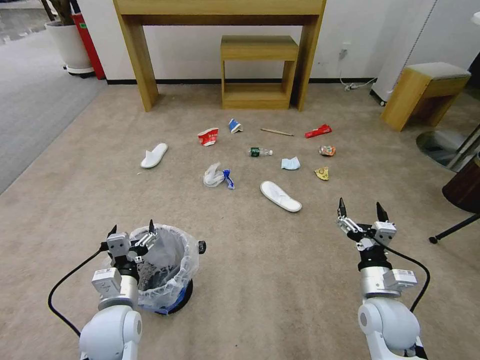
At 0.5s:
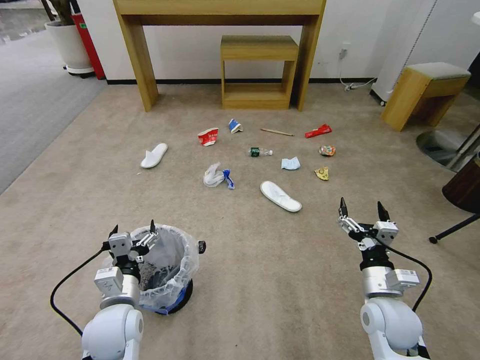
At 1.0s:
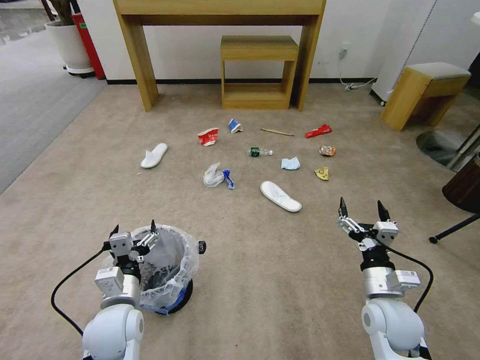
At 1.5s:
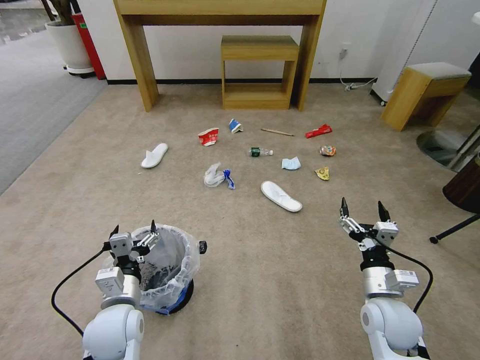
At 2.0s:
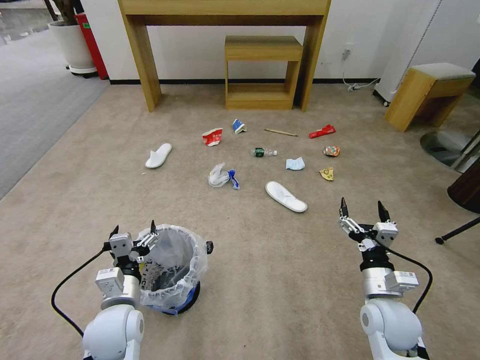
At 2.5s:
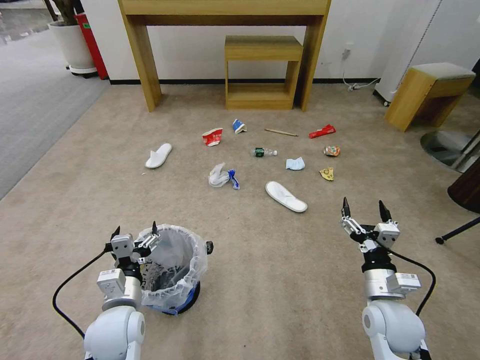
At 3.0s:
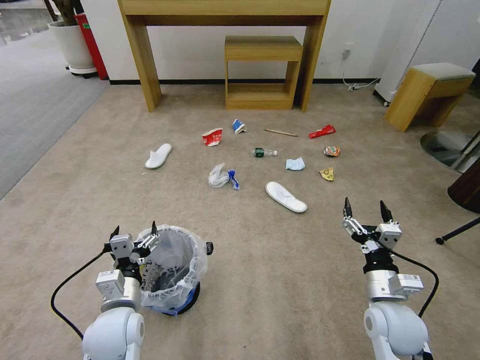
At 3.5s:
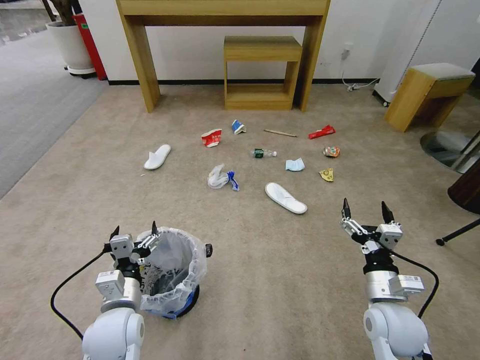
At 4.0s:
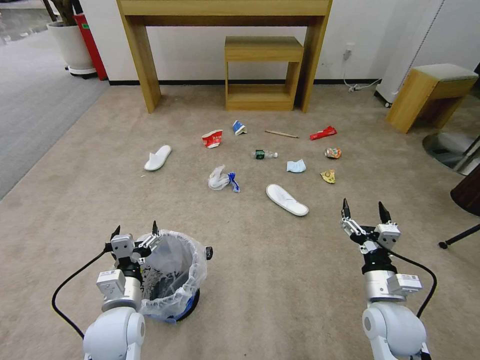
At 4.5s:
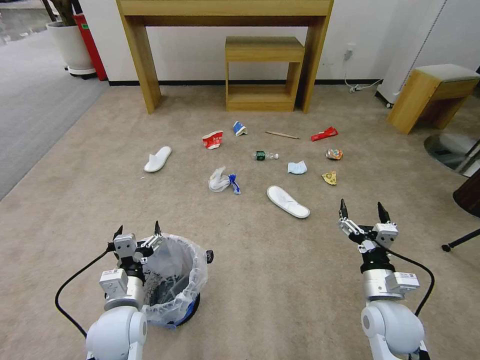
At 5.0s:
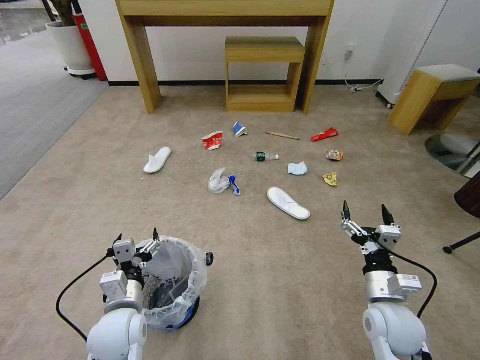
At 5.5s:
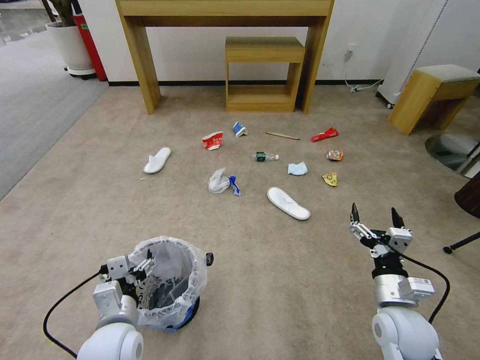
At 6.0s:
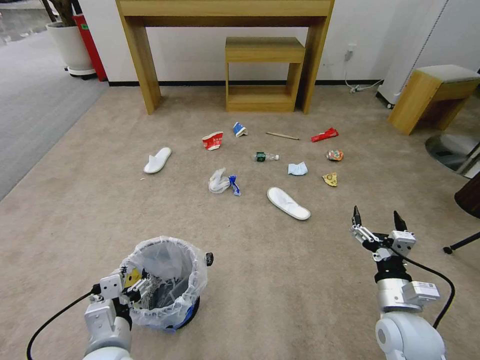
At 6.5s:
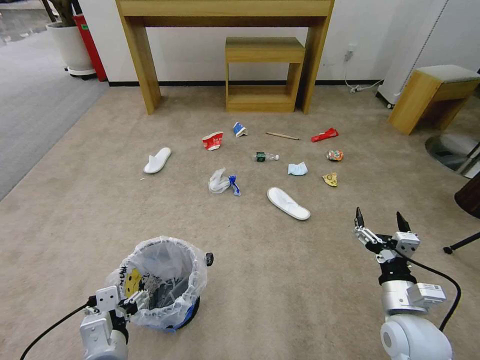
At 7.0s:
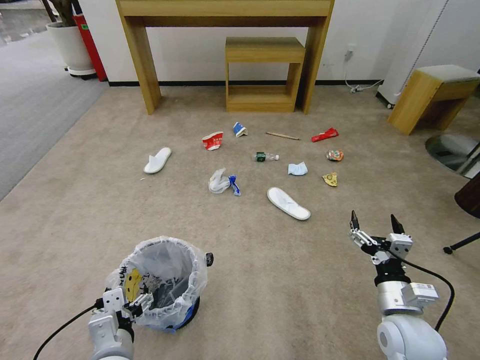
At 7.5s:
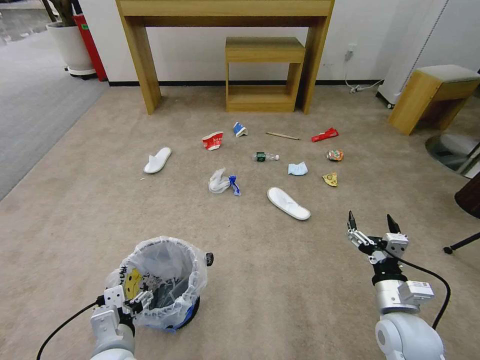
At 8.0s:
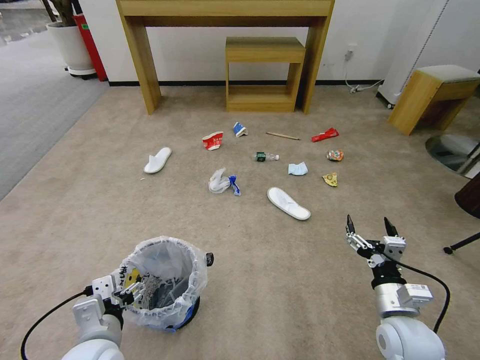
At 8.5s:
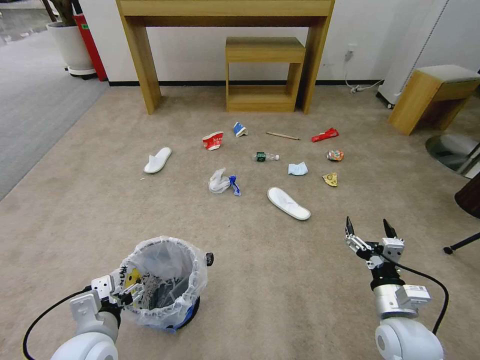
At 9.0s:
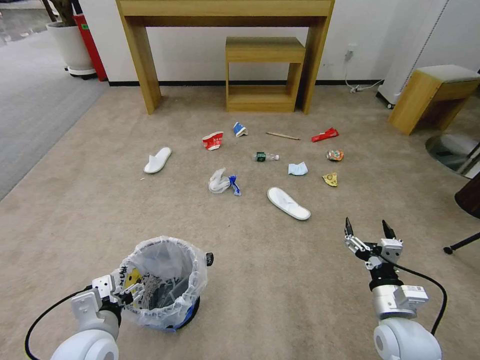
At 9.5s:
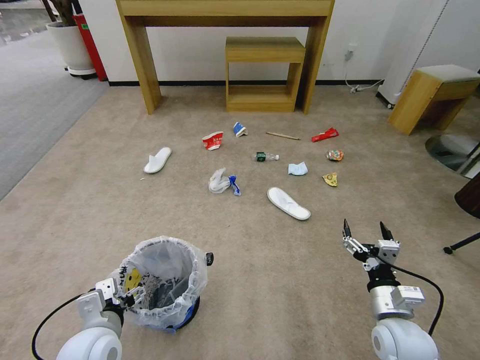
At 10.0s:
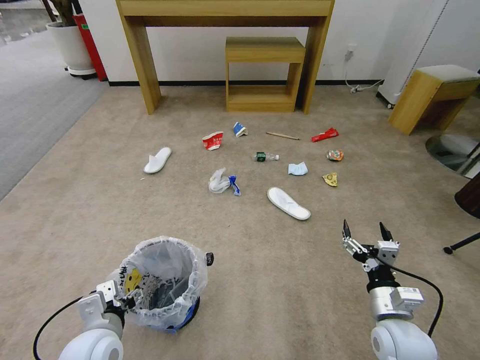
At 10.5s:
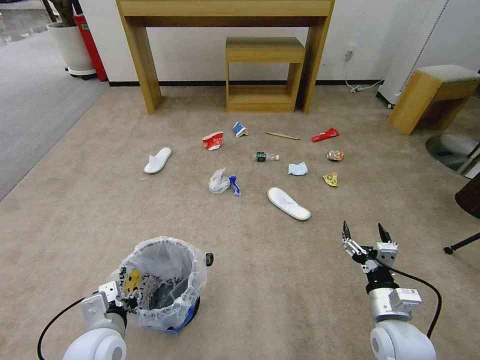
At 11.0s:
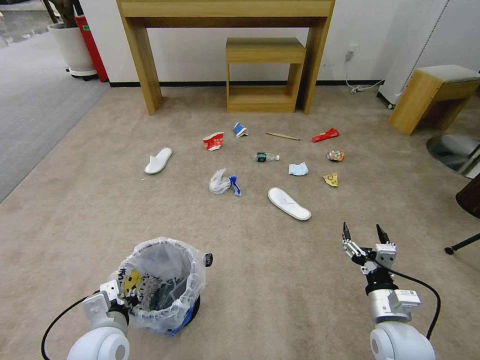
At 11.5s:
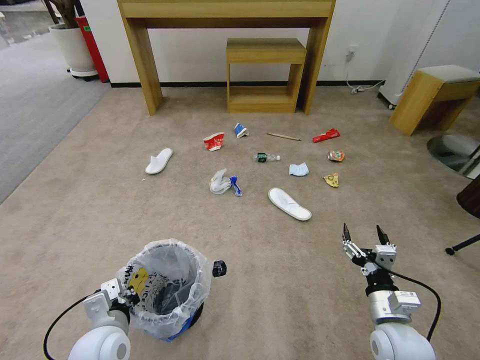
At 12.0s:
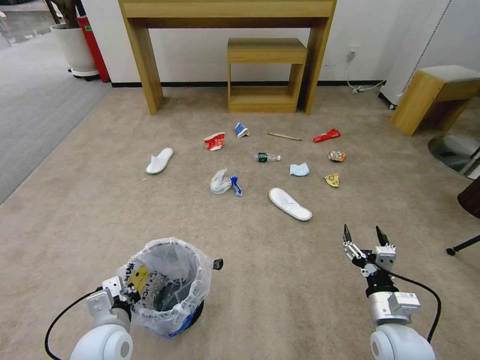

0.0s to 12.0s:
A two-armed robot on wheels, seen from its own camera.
Task of the whole recording: Pick up the trash bin and place the garbage on the floor into it.
2.0s to 4.0s: Neither gripper changes place.
4.0s to 6.0s: The left gripper shifts approximately 5 cm backward.
6.0s to 10.0s: The grippers make only small movements.
10.0s to 12.0s: The left gripper closes.

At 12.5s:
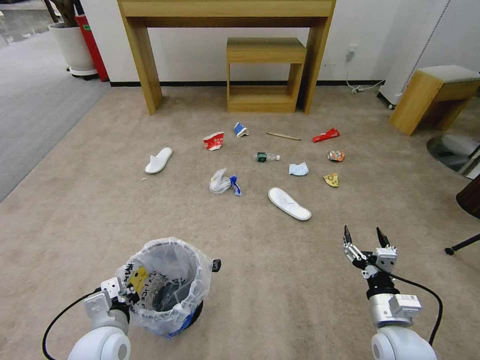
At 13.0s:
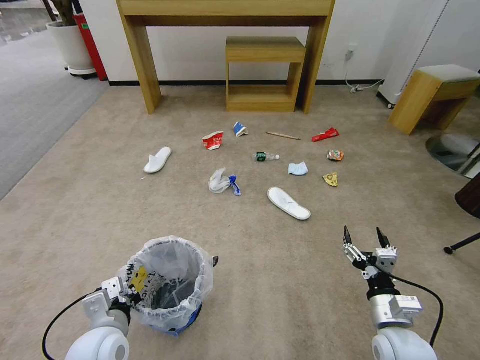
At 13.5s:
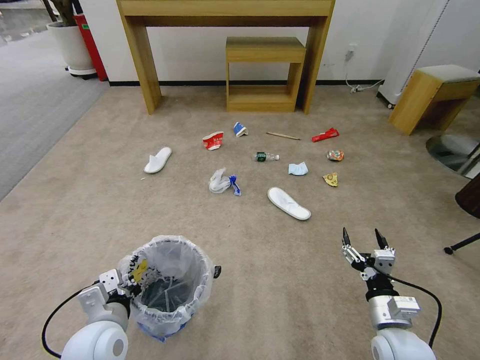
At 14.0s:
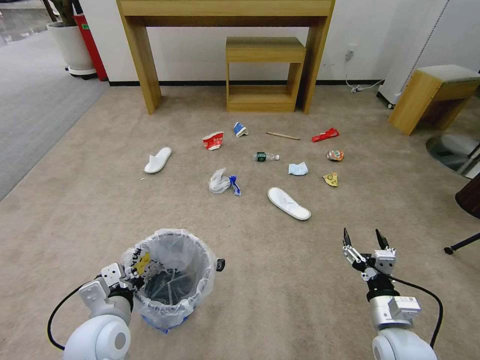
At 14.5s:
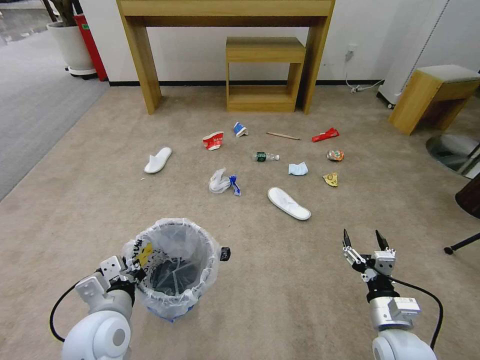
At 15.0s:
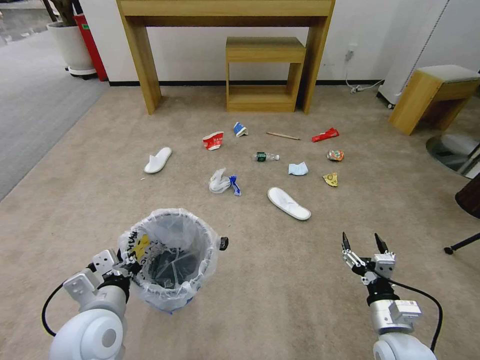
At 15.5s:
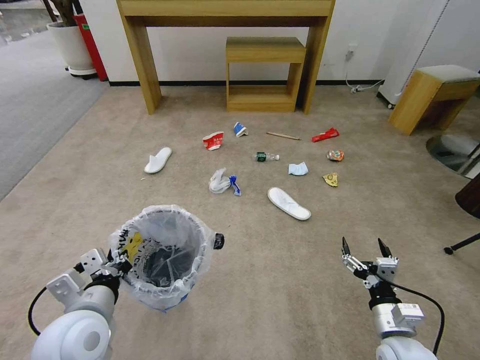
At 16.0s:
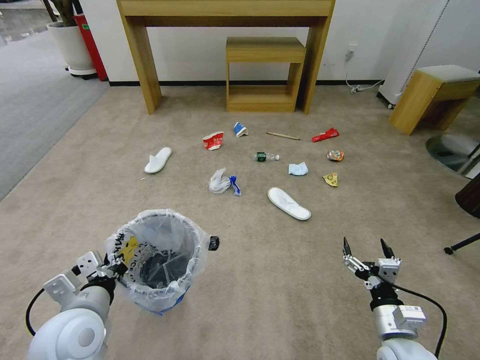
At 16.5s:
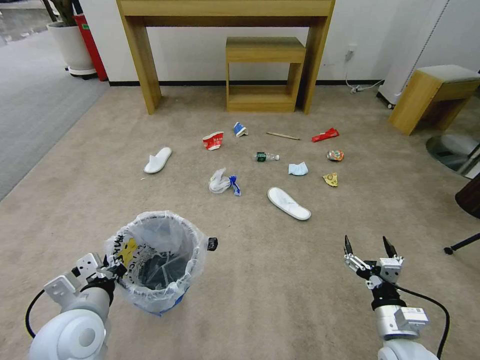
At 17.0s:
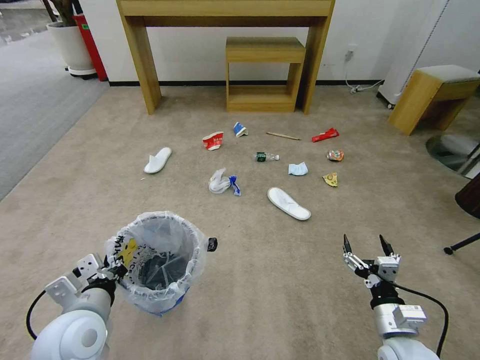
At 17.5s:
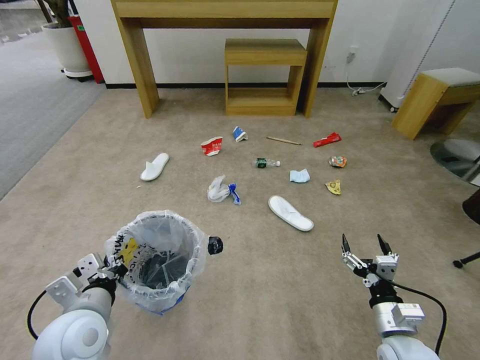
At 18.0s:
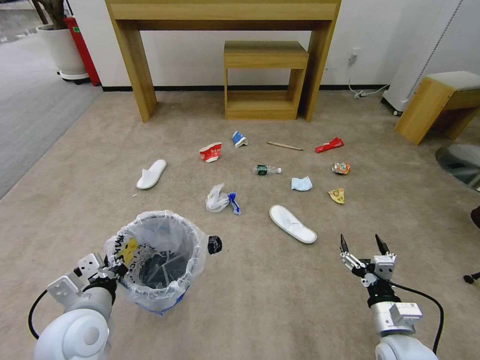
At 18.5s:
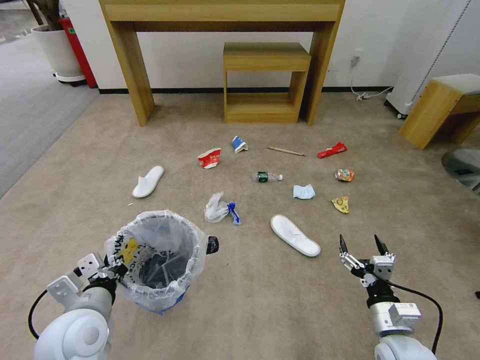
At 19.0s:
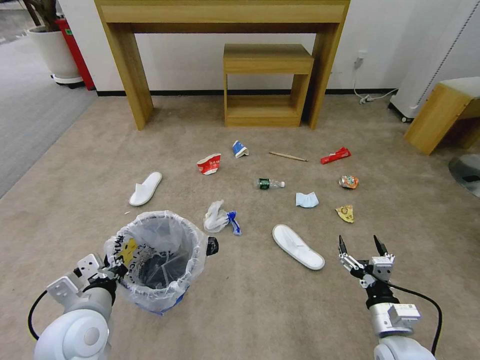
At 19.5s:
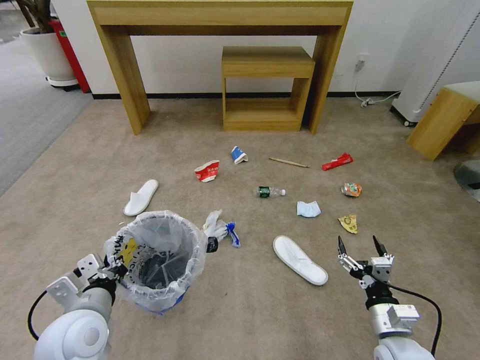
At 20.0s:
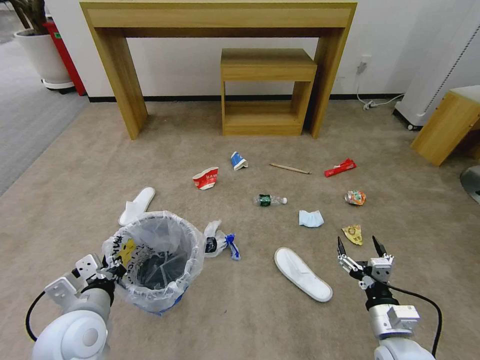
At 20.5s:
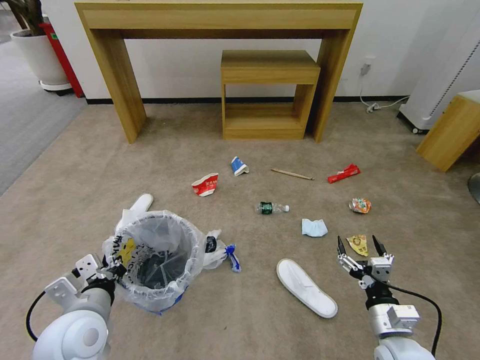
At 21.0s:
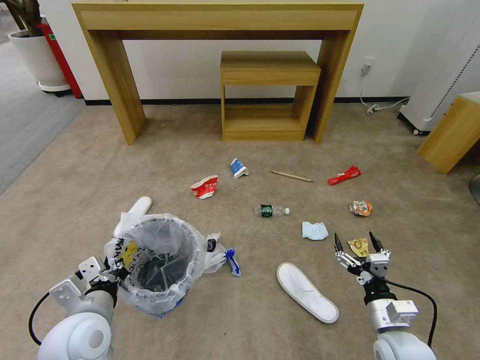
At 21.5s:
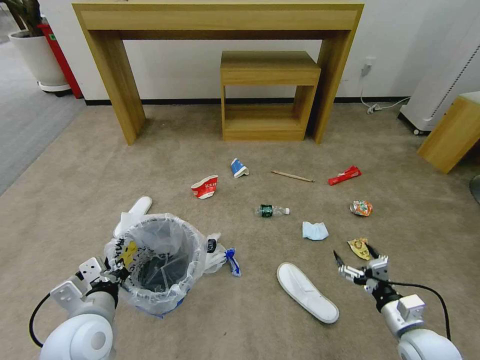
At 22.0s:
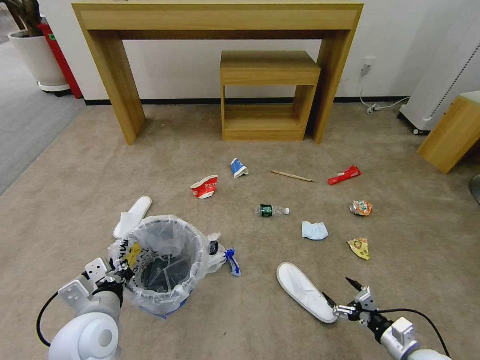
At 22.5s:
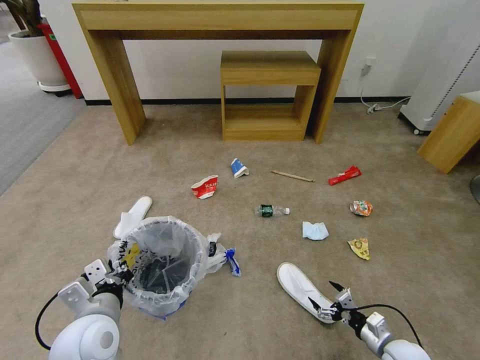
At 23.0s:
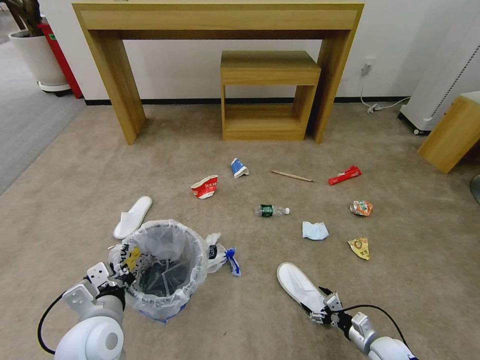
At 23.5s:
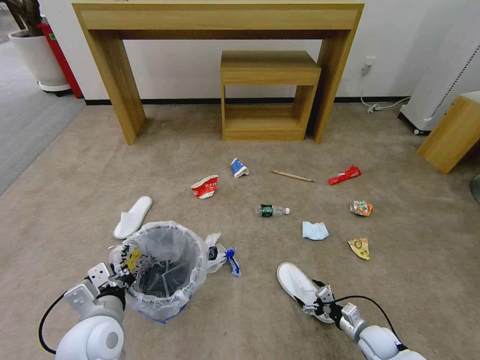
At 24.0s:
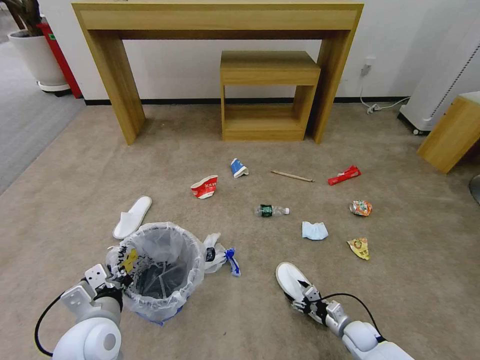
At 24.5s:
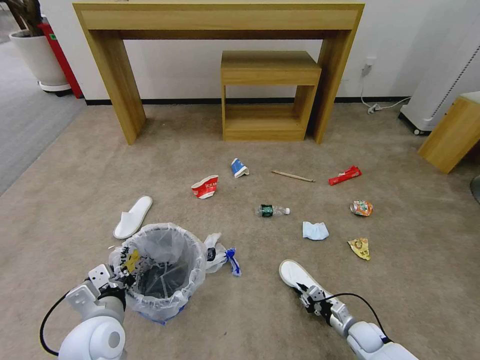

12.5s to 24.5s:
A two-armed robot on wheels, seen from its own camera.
Task of the whole recording: Pick up the trash bin and place the garbage on the floor into it.
12.5s to 14.5s: The left gripper moves upward, roughly 5 cm.
14.5s to 16.5s: The grippers make only small movements.
20.5s to 22.5s: The right gripper goes approximately 15 cm downward and to the right.
22.5s to 24.5s: The right gripper heads downward and forward, covering roughly 10 cm, and closes up.

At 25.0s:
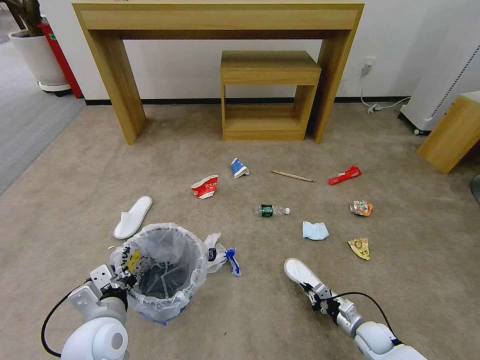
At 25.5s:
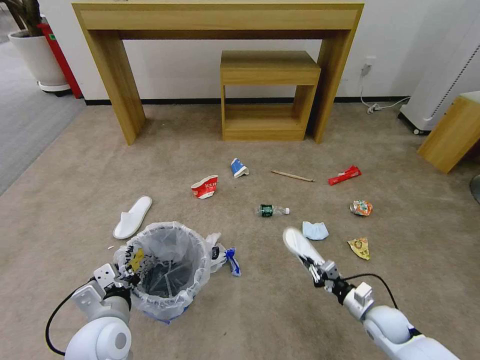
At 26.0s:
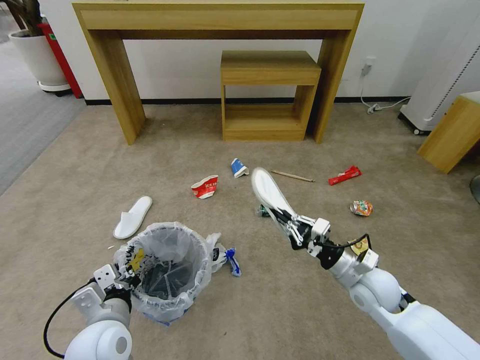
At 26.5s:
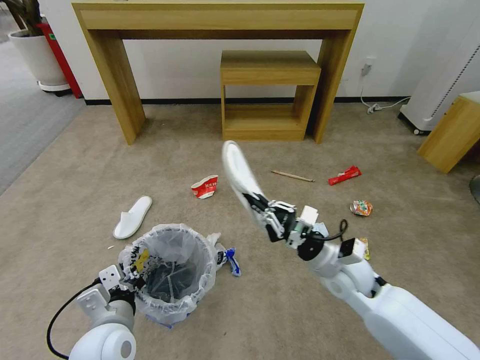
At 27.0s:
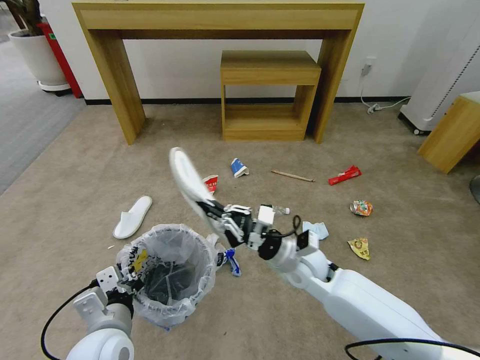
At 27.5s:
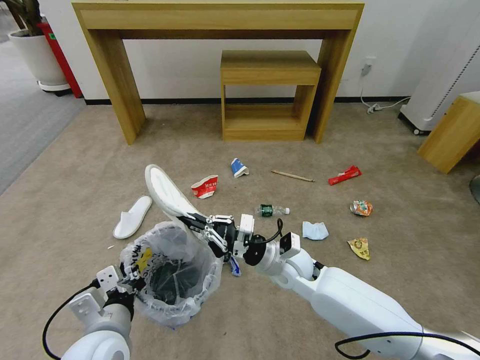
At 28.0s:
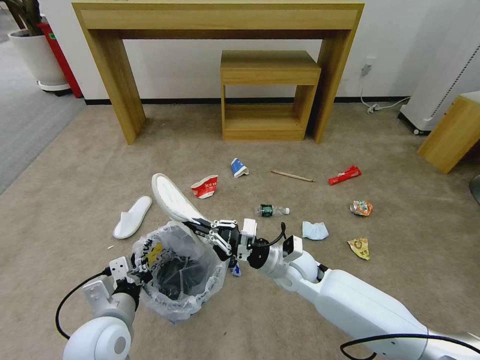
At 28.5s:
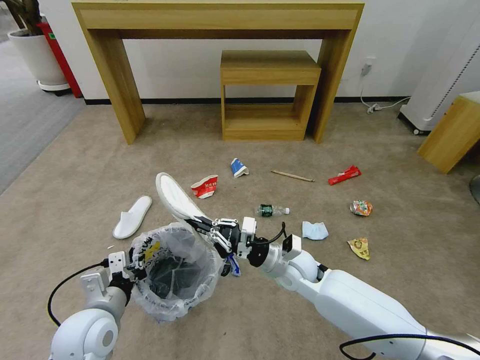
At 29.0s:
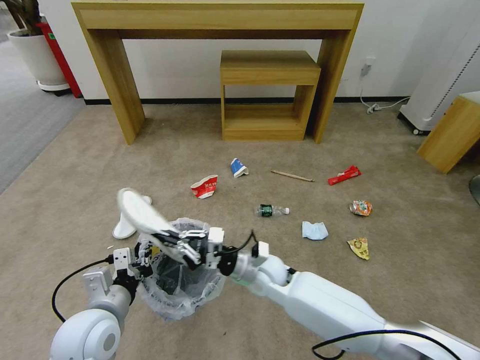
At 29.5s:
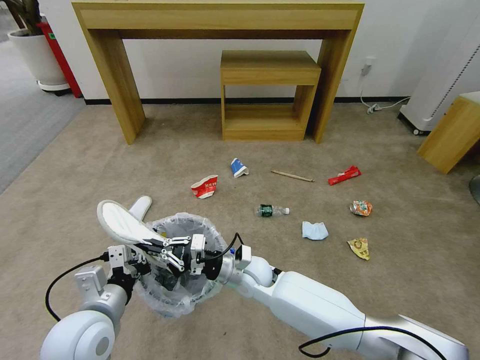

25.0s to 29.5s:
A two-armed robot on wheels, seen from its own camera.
Task of the whole recording: Pick up the trash bin and place the garbage on the floor into it.
25.0s to 27.0s: The right gripper goes about 35 cm upward and to the left.
27.0s to 29.5s: The right gripper shifts some 15 cm to the left and downward.
